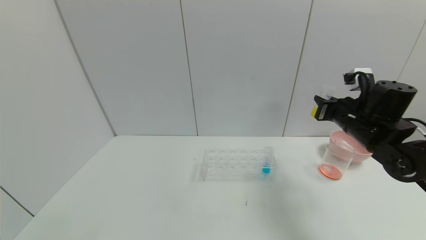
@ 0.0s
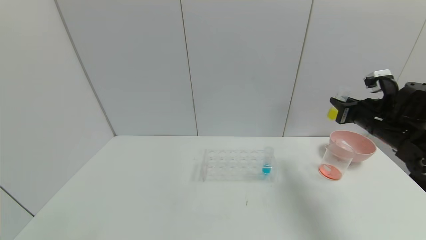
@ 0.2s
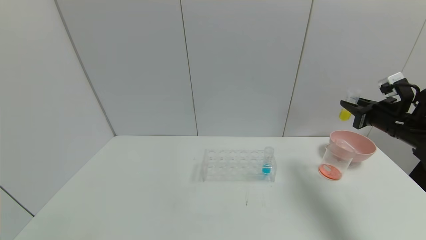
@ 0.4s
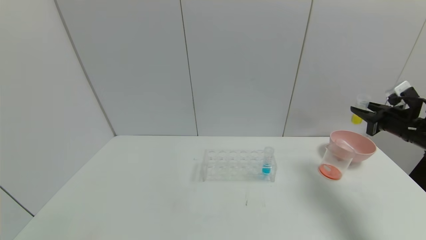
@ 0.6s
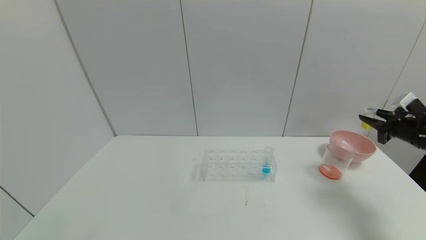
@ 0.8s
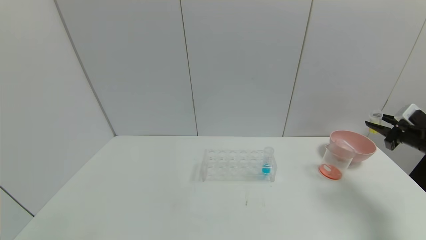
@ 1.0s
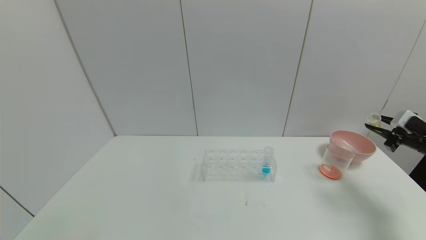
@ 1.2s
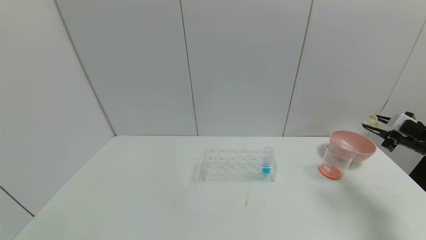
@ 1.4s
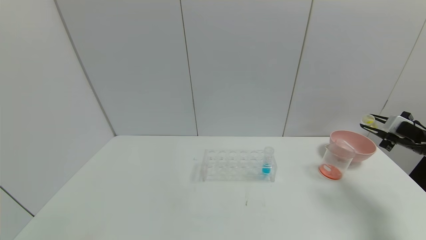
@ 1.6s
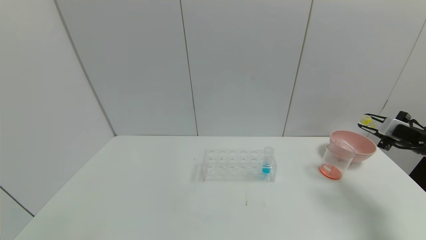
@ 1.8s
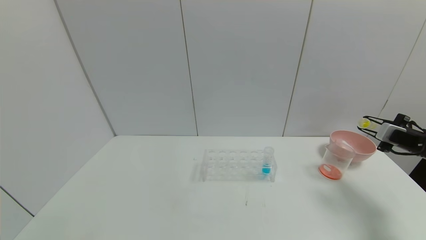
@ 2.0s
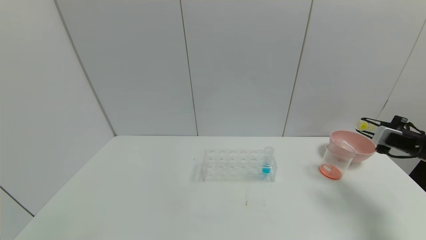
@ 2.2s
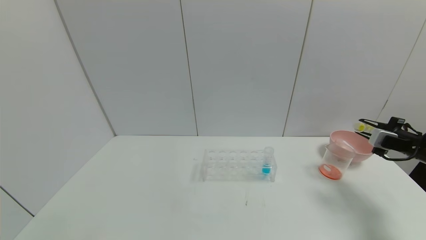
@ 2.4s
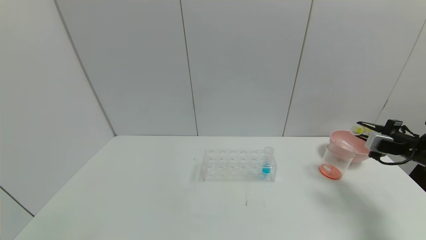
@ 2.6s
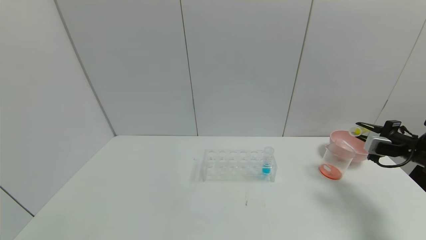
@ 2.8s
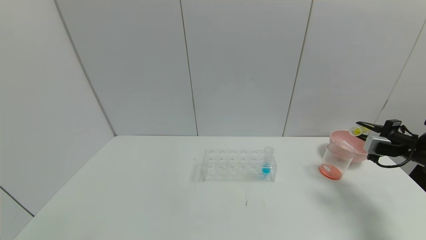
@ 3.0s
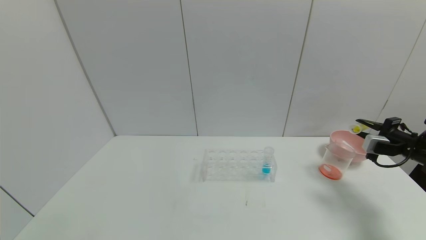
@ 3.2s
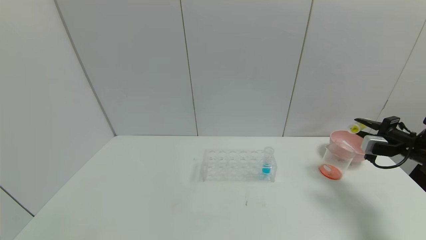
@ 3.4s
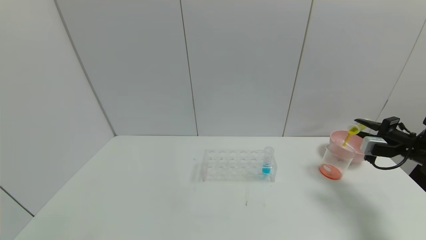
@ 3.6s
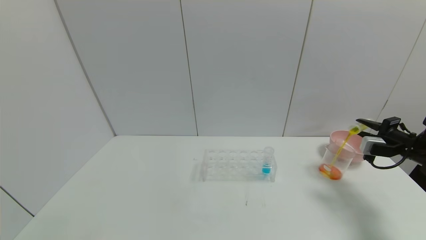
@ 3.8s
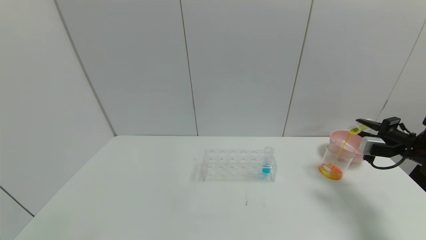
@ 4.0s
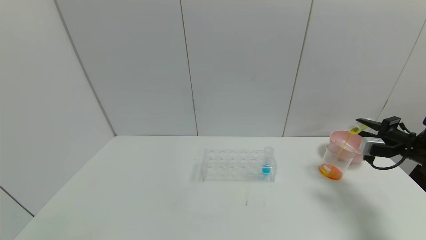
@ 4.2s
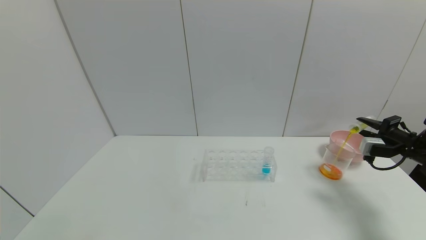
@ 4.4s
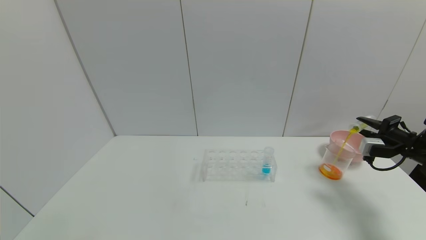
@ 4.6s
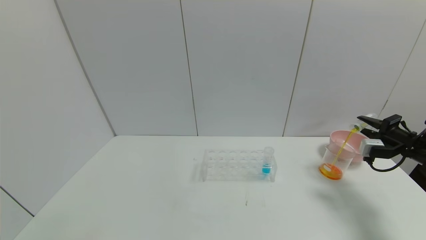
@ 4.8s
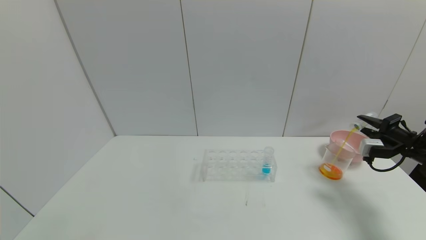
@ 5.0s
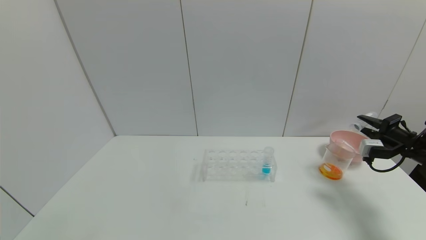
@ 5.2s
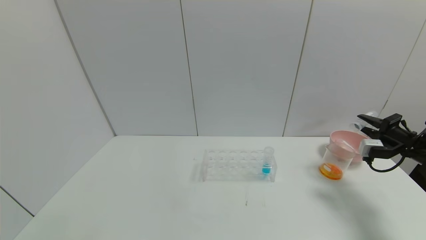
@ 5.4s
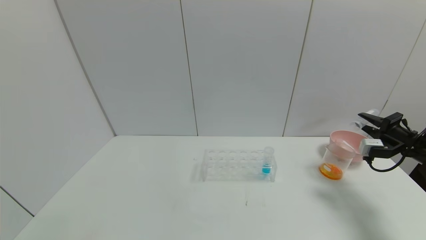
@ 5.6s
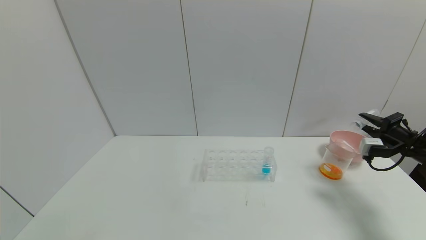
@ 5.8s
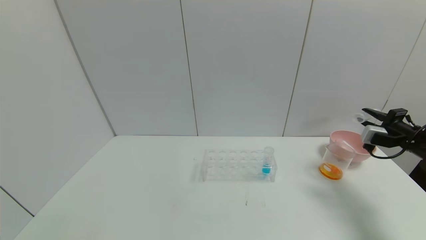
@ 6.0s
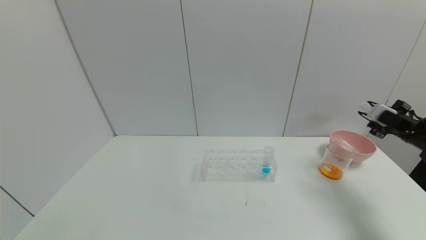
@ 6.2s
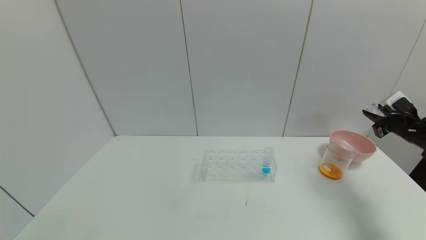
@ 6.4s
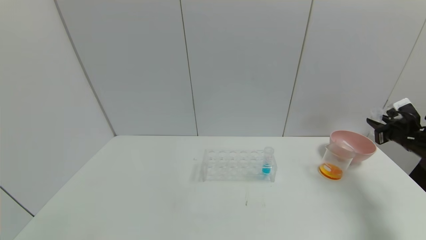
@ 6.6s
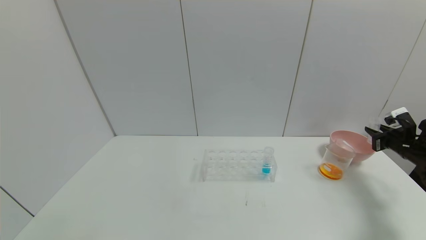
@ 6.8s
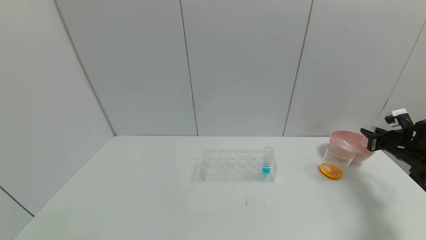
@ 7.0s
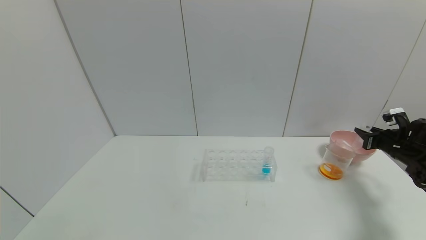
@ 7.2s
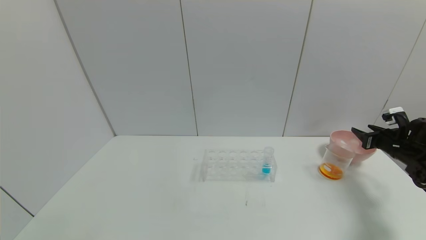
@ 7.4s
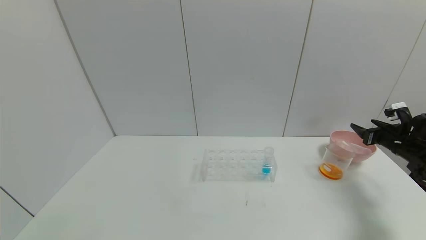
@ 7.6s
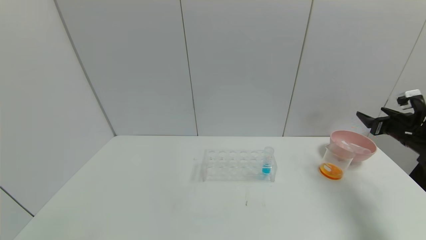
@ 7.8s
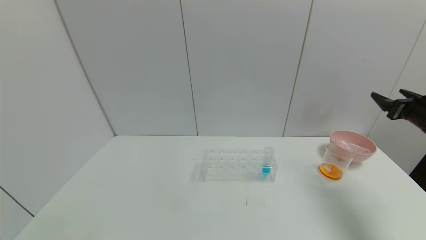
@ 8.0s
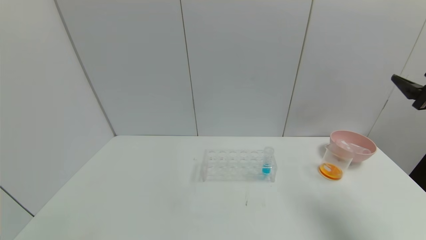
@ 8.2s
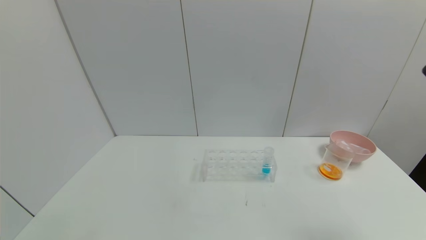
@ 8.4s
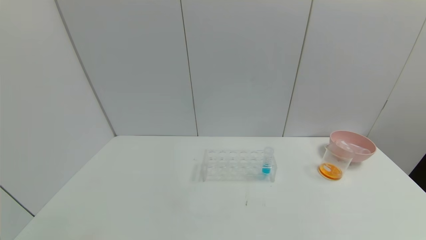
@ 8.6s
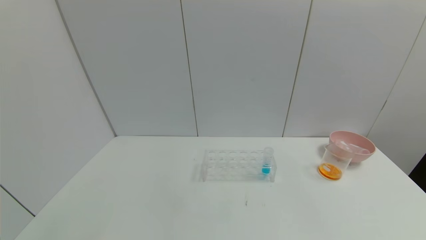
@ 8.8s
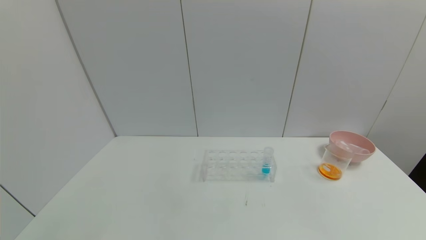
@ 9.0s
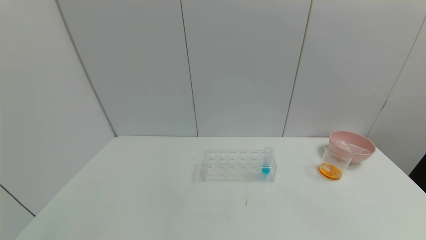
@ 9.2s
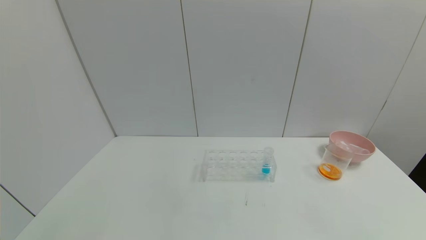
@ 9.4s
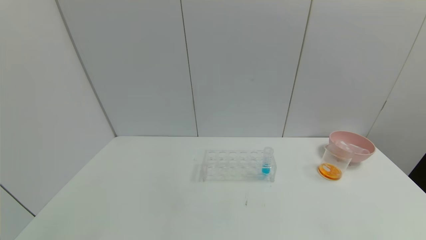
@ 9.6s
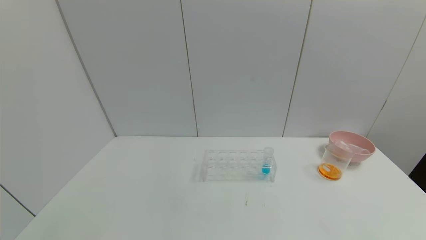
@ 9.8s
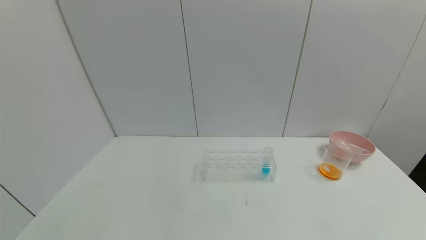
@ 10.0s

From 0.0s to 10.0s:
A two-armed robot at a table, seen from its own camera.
Task of the whole recording: pick up the test tube with yellow pigment and the test tube with red pigment by grippers and pour them into the beaker.
Step, from 0.0s to 5.6s: Pour the yellow reagent into the graduated cylinder with the right gripper.
Step, from 5.8s to 7.4s: Place the test tube into the bowl with the right gripper.
From 0.0s to 1.4s: The right gripper moves to the right, roughly 20 cm.
From 2.8s to 4.2s: The grippers stay close to where they were, moving slightly.
From 4.2s to 5.8s: The grippers stay close to where they were, moving slightly.
From 5.8s to 7.2s: The right gripper changes place by some 5 cm.
From 7.2s to 8.6s: The right gripper travels backward, upward and to the left by some 35 cm, and opens.
